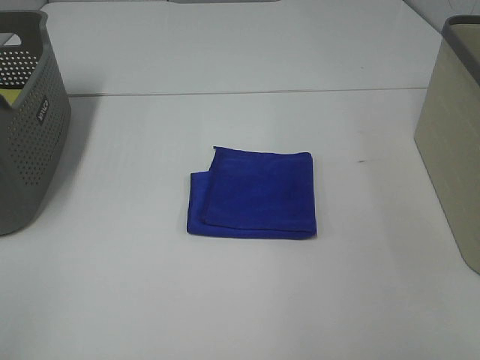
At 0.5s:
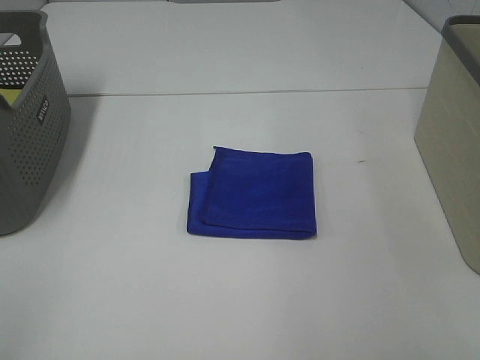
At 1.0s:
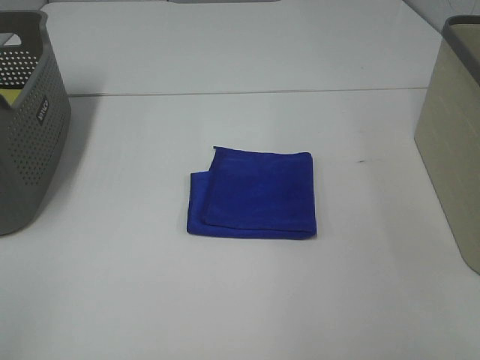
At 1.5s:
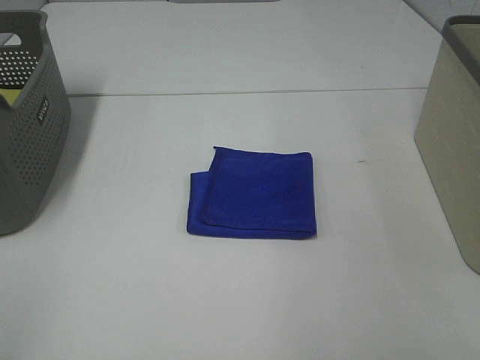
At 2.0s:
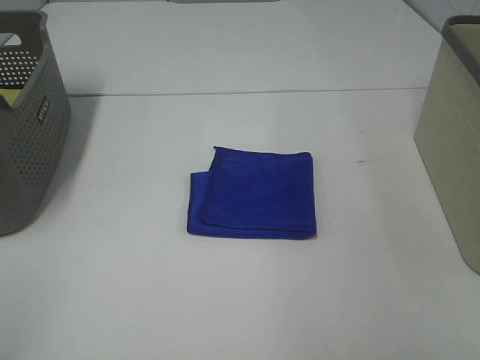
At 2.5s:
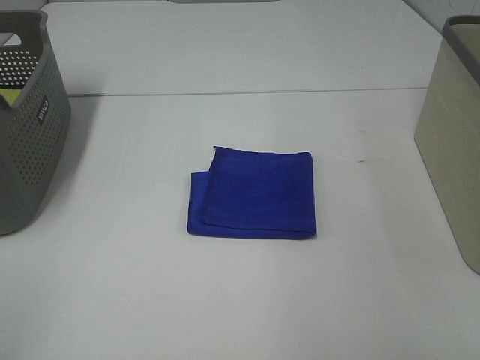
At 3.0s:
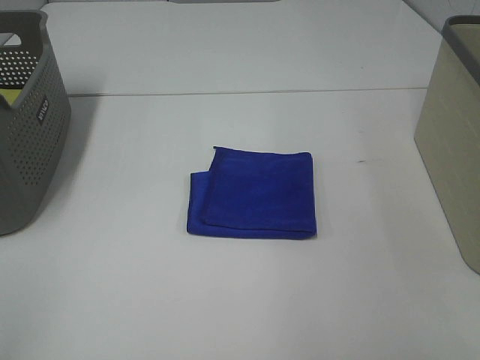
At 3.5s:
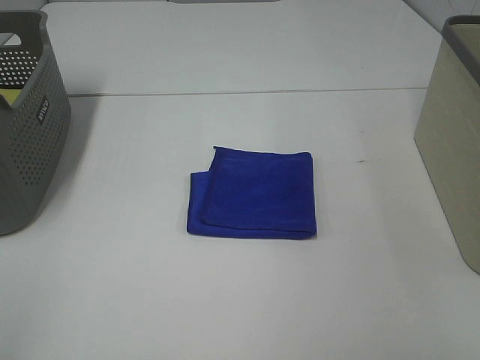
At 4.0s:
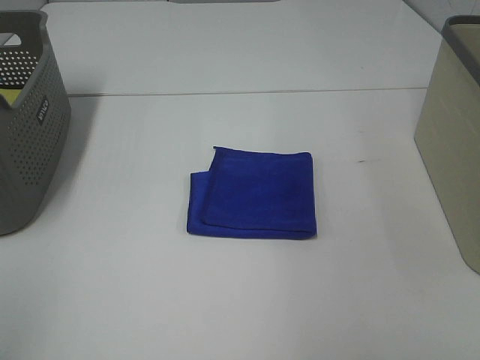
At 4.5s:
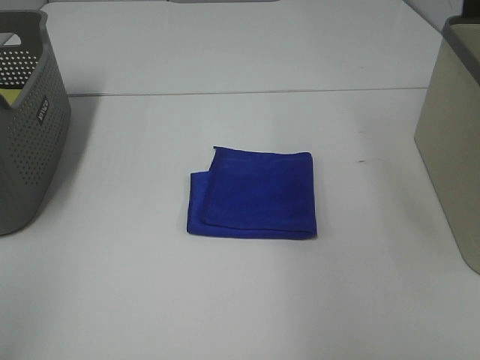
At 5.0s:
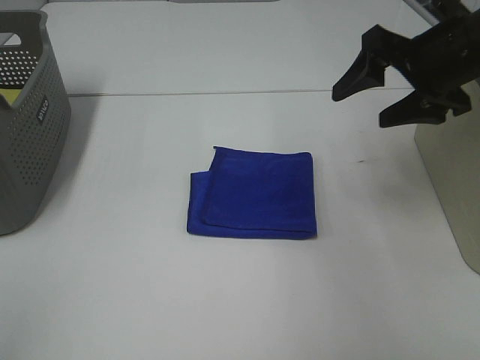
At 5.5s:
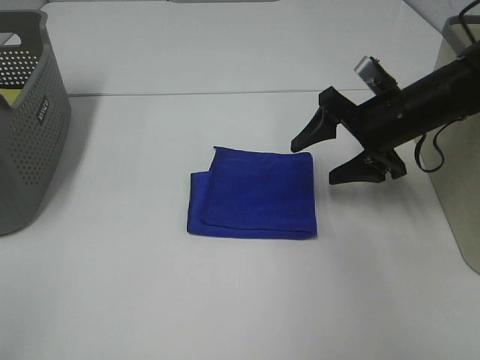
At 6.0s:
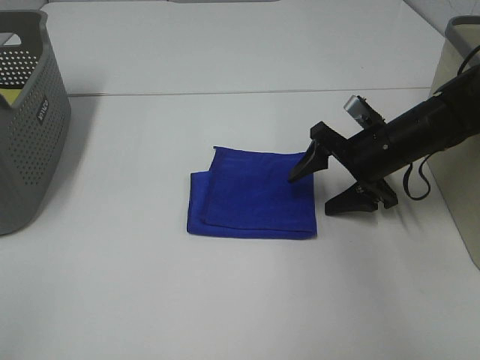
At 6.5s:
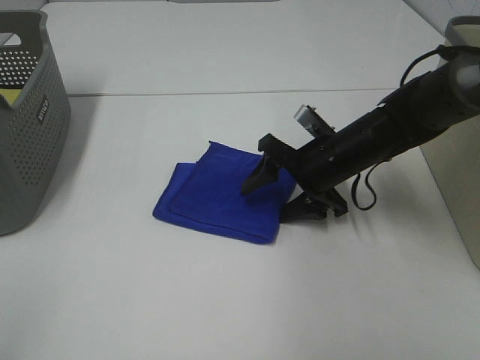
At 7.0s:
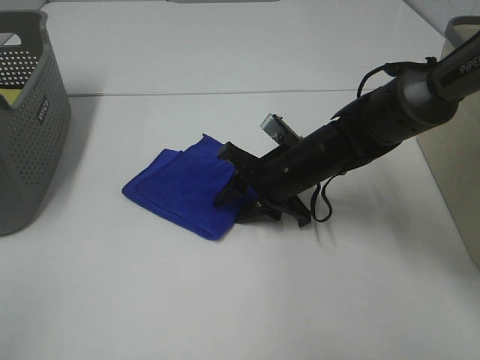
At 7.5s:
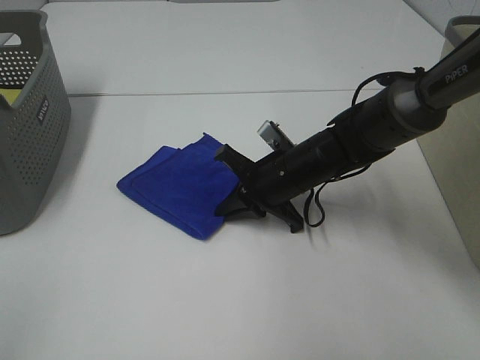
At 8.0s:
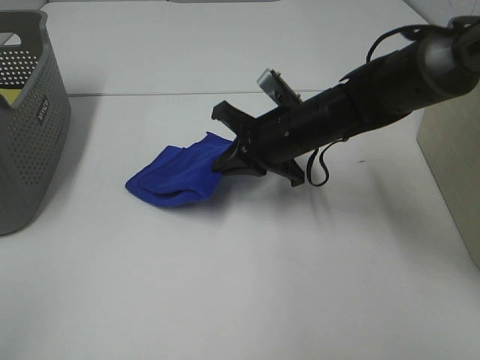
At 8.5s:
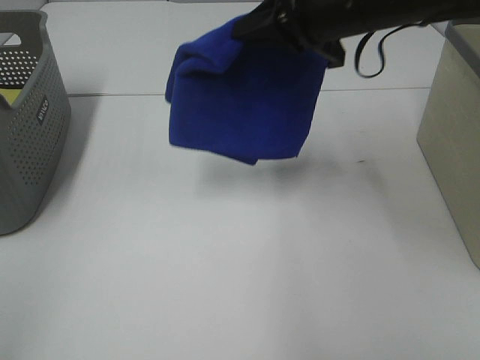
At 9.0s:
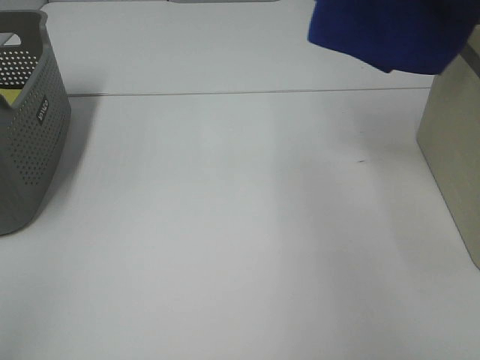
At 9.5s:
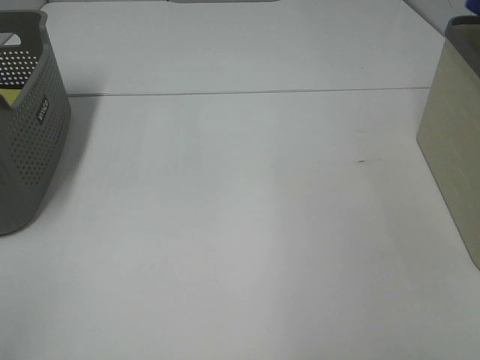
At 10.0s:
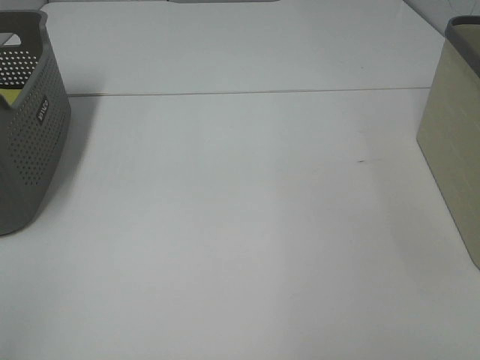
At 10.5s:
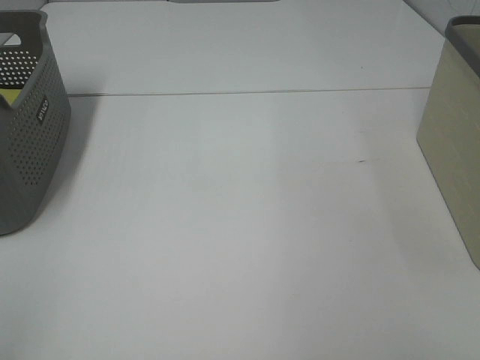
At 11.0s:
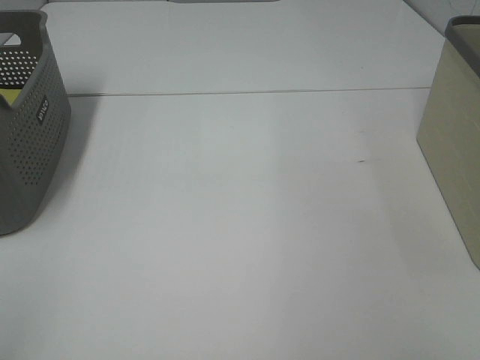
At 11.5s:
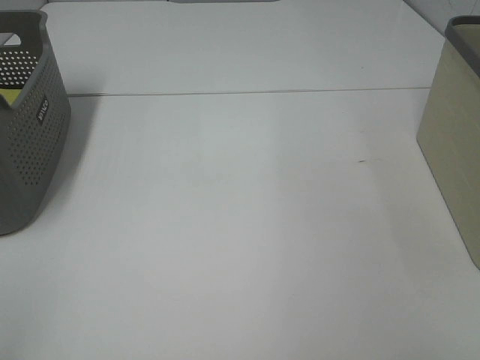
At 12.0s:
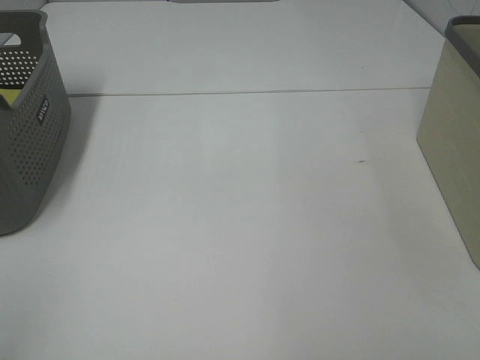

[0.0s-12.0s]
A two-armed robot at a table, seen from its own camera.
Step, 0.0s to 7.0s: Right hand: grab the folded blue towel.
Step, 7.5s to 12.0s: Right hand: place the blue towel in right basket.
0.0s to 2.0s: Both grippers stay put.
4.0s to 6.0s: The right gripper heads downward and forward, covering approximately 40 cm.
6.0s to 8.0s: The right gripper is displaced to the left by approximately 15 cm, and closes its fingers.
8.0s to 10.0s: The right gripper is displaced to the right and upward by approximately 40 cm.

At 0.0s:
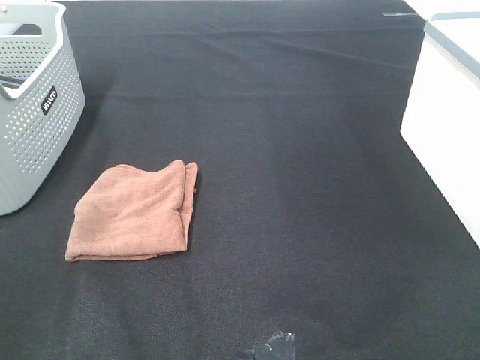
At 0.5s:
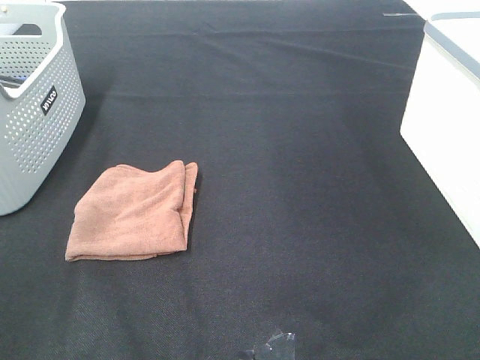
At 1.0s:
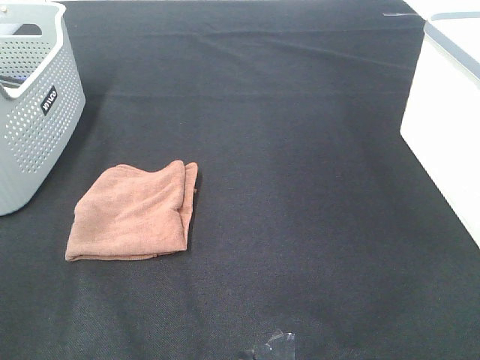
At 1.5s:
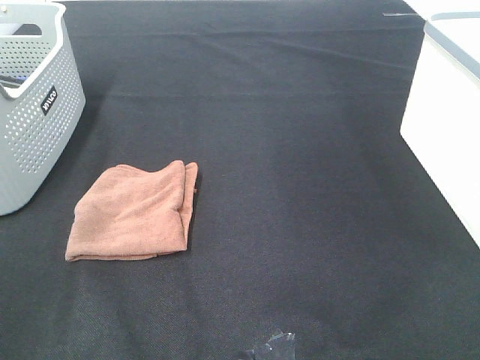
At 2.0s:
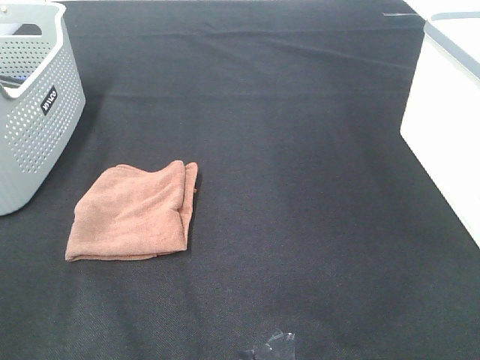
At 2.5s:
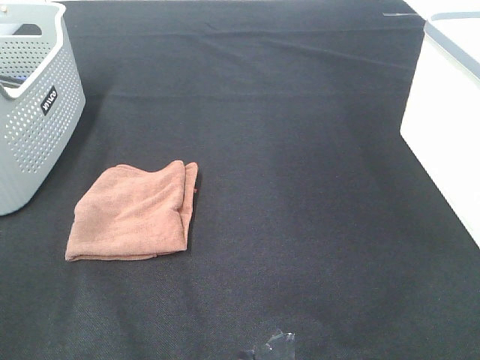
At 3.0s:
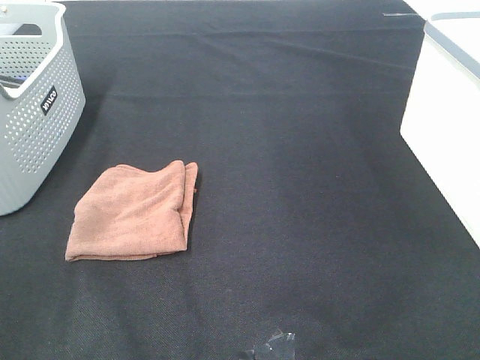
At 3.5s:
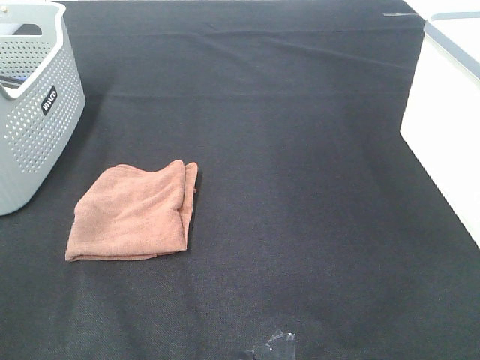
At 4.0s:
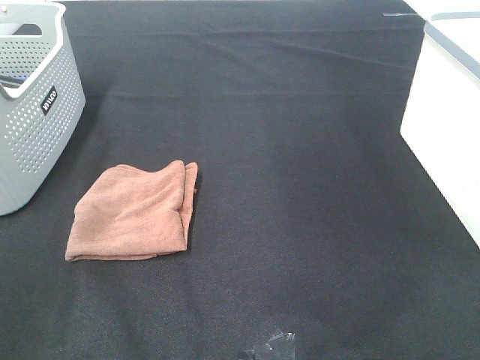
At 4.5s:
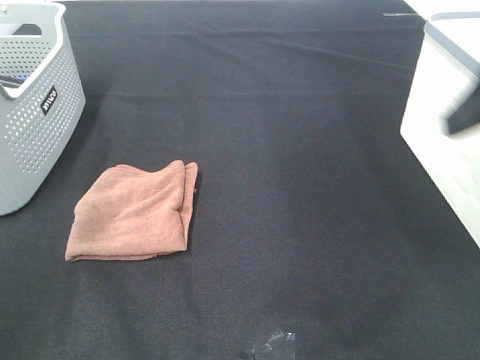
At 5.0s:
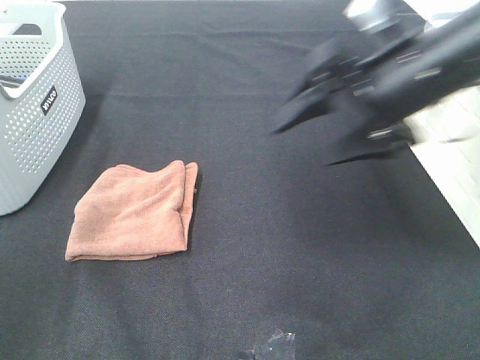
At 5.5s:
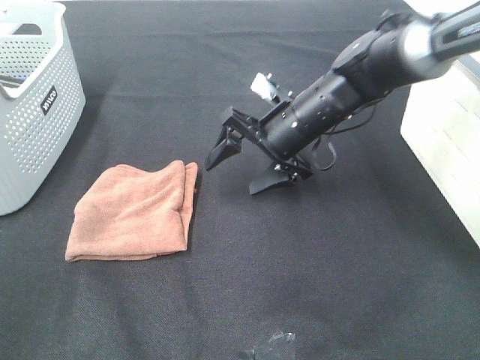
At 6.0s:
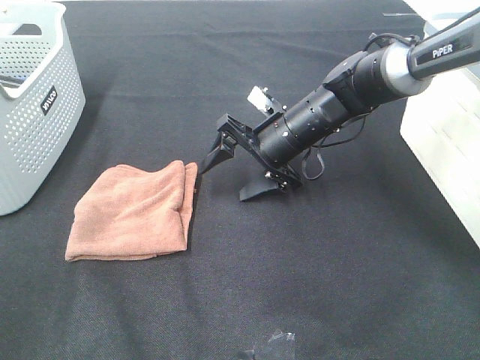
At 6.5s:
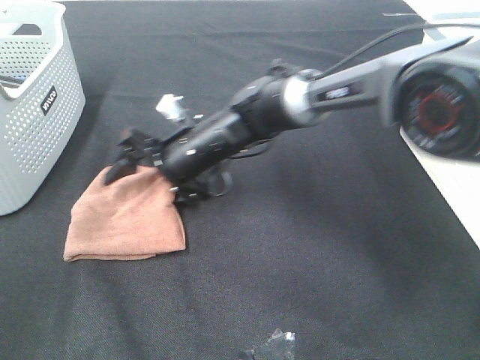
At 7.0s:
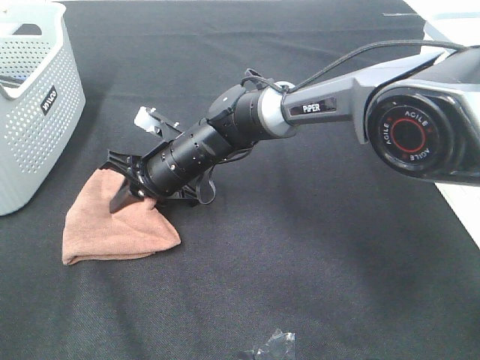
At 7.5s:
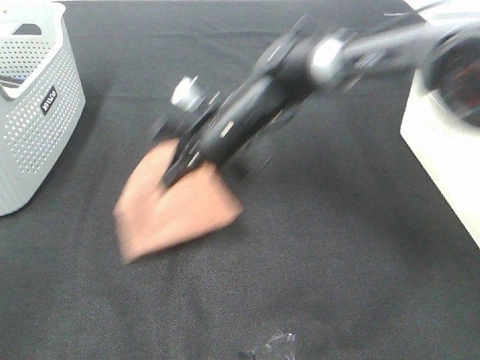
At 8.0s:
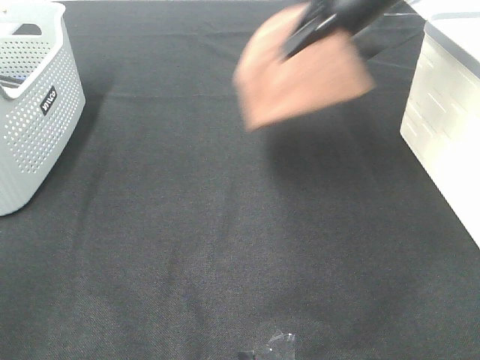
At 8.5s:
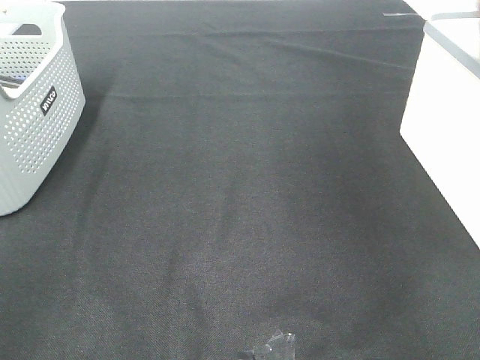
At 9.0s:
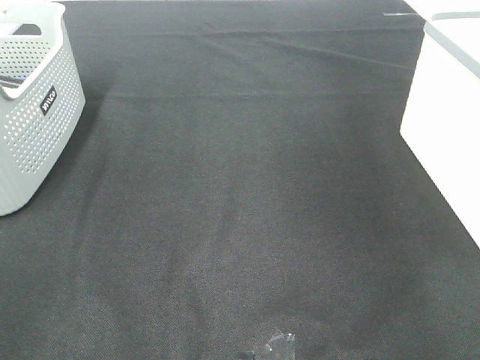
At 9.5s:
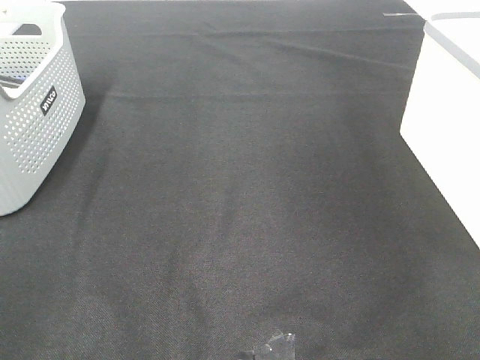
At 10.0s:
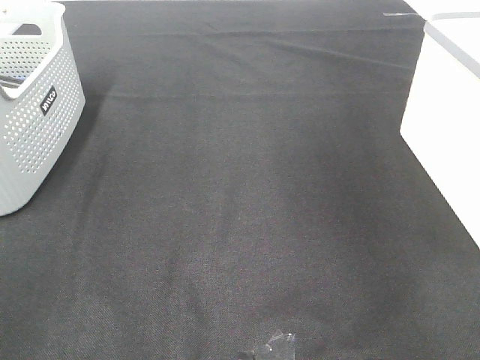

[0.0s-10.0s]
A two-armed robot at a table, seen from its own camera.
Step, 0.0s to 7.0s: Right hand: grab the folded brown towel.
Step, 7.5s to 9.0s: Right hand: place the brown towel in right basket.
0.0s to 2.0s: Both grippers stay about where they are.
4.0s to 6.0s: The right gripper moves forward, downward and to the left, approximately 50 cm.
6.0s to 8.0s: The right gripper goes approximately 25 cm upward and to the right, and closes.
8.0s to 10.0s: The right gripper moves to the right, some 15 cm, and opens its fingers.

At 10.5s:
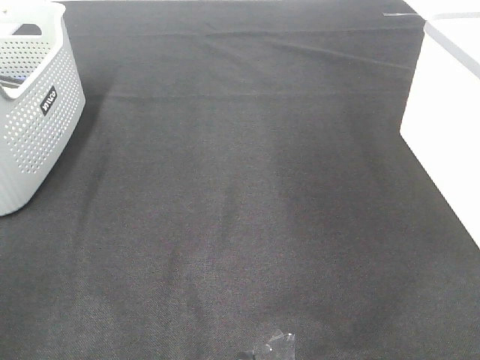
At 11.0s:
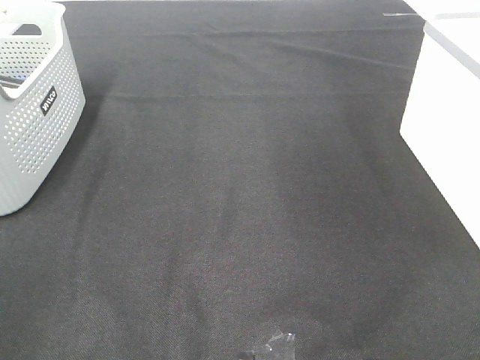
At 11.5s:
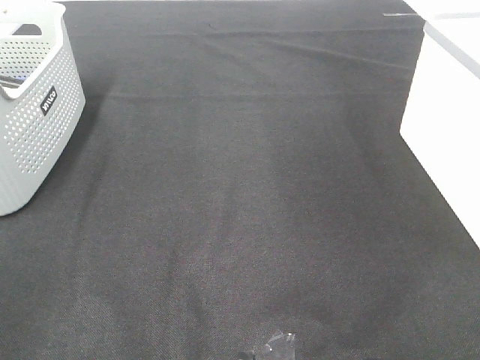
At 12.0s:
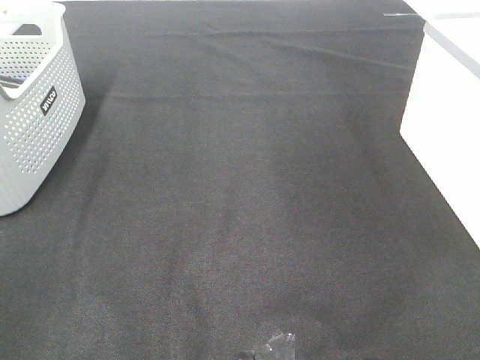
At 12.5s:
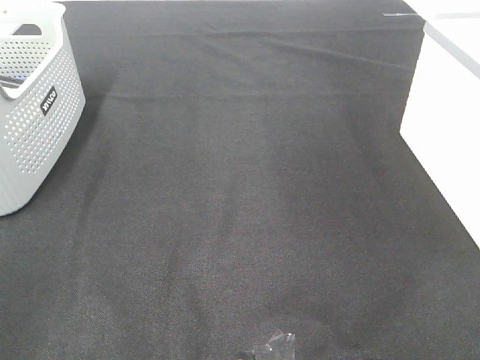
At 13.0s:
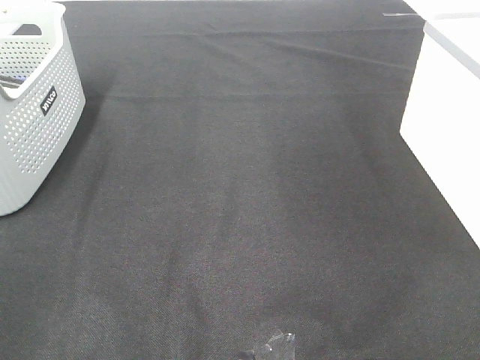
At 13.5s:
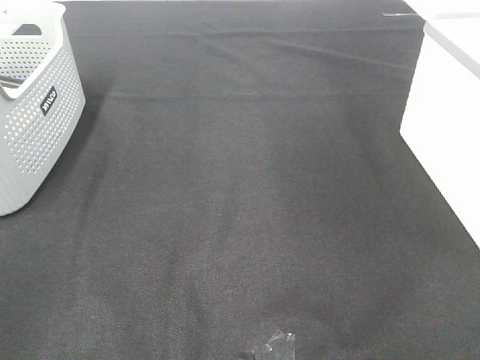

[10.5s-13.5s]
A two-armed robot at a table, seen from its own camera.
12.0s to 13.5s: Neither gripper changes place.

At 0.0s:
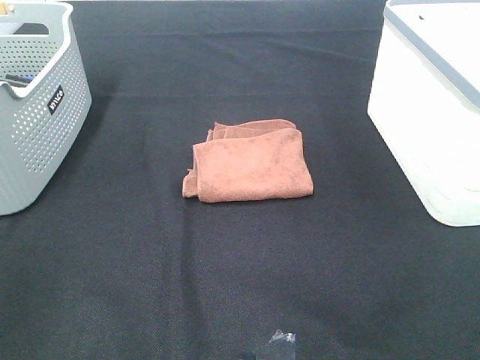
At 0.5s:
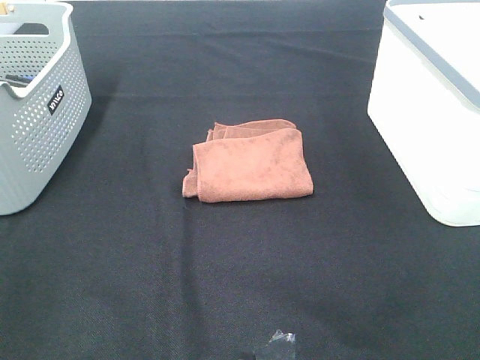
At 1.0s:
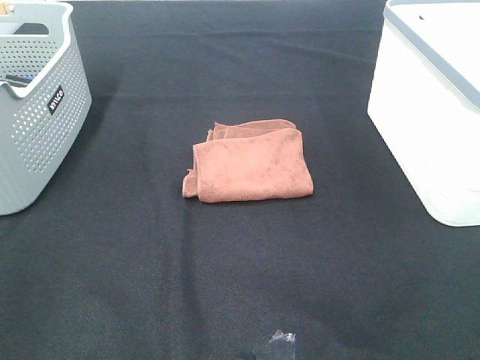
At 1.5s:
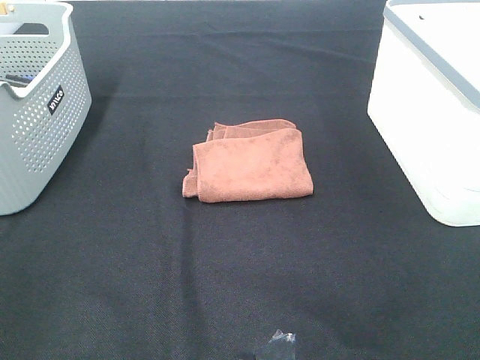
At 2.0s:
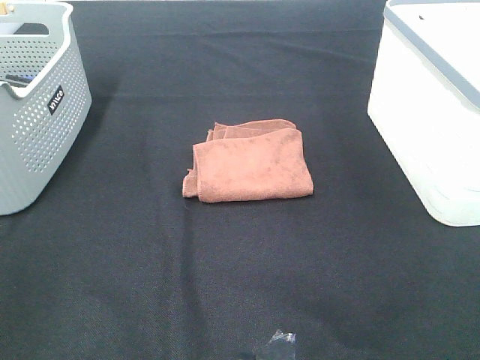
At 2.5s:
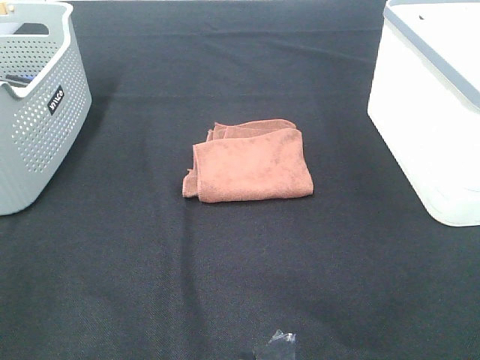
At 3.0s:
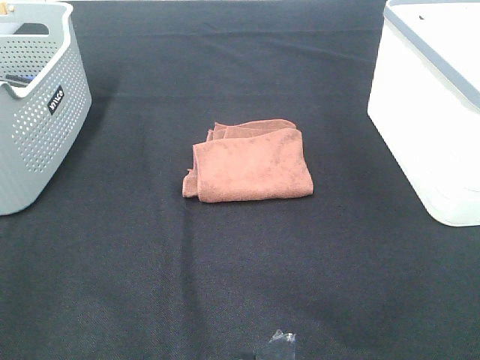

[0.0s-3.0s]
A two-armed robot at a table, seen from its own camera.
1.5s to 3.0s: Both grippers stay about where they are.
